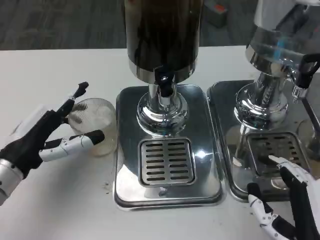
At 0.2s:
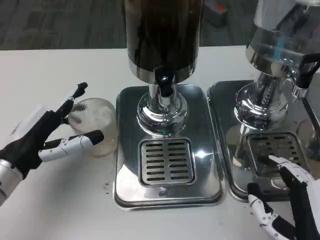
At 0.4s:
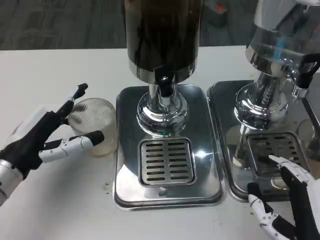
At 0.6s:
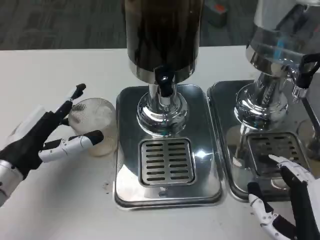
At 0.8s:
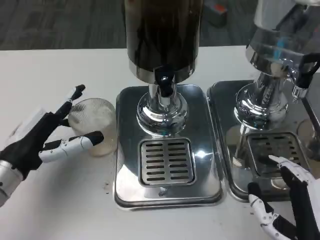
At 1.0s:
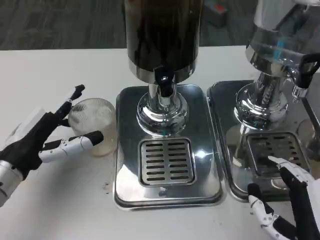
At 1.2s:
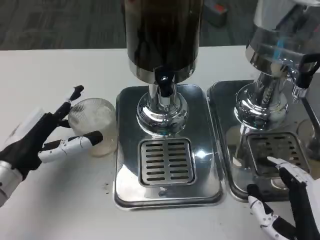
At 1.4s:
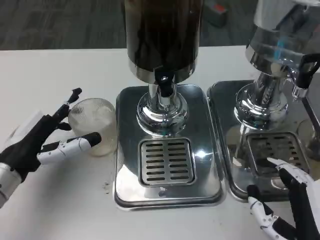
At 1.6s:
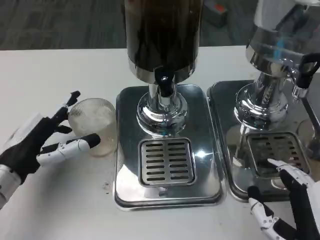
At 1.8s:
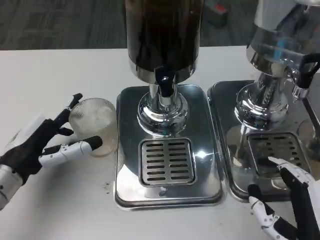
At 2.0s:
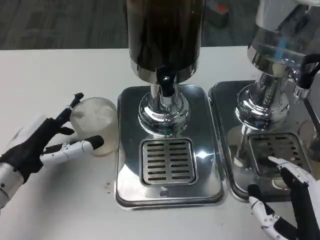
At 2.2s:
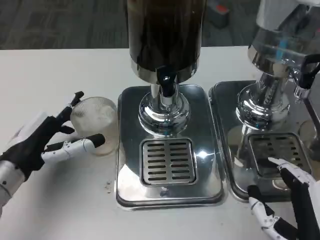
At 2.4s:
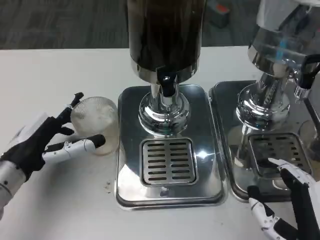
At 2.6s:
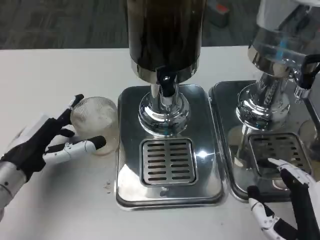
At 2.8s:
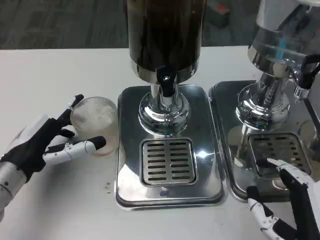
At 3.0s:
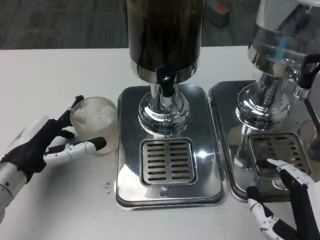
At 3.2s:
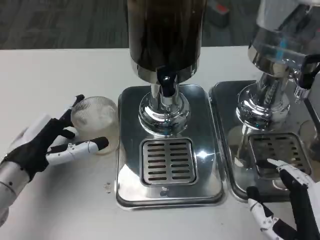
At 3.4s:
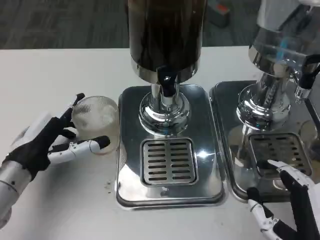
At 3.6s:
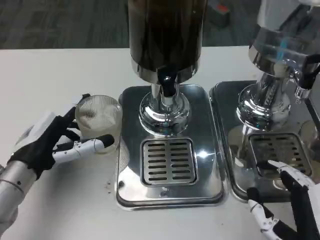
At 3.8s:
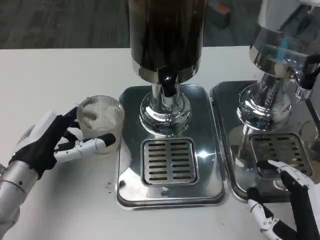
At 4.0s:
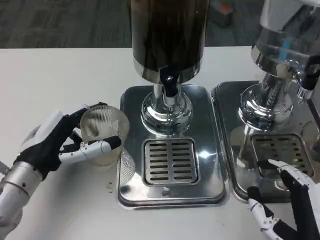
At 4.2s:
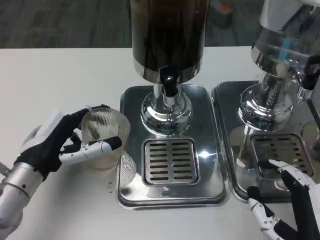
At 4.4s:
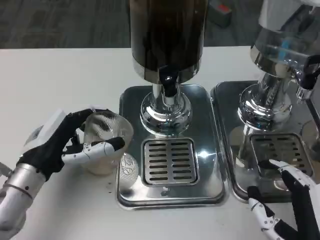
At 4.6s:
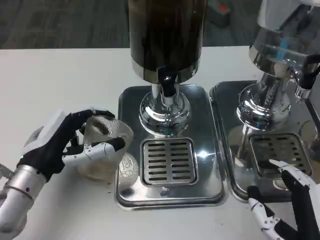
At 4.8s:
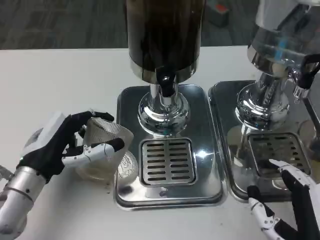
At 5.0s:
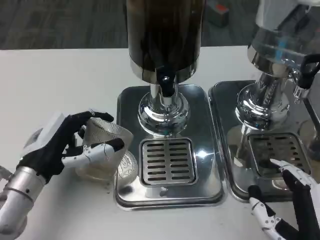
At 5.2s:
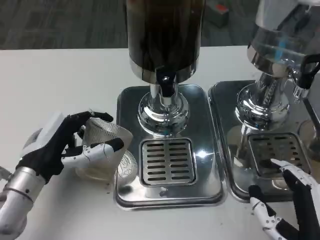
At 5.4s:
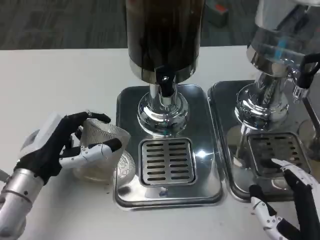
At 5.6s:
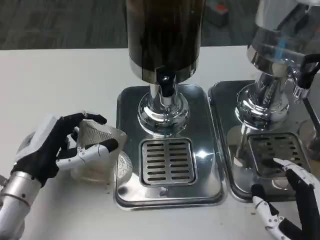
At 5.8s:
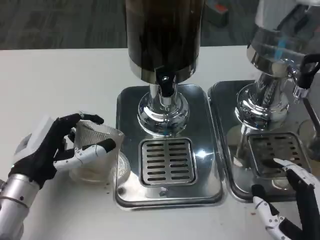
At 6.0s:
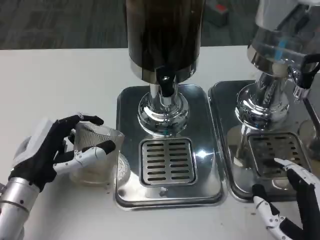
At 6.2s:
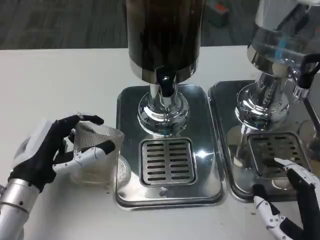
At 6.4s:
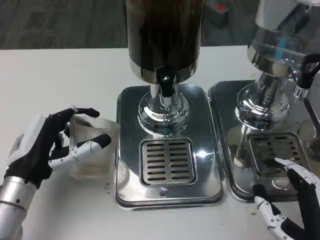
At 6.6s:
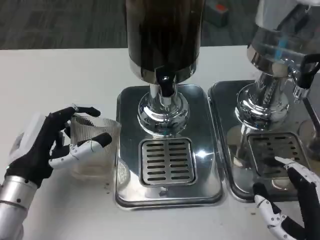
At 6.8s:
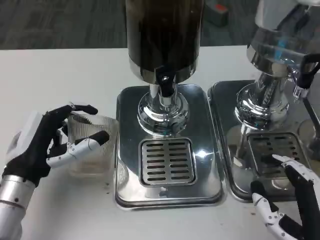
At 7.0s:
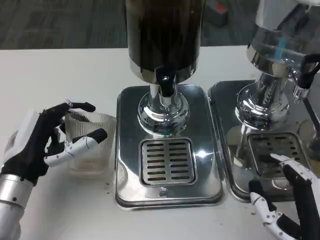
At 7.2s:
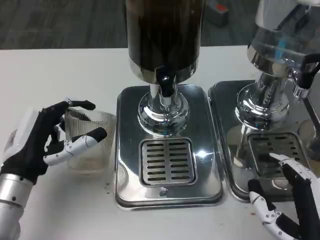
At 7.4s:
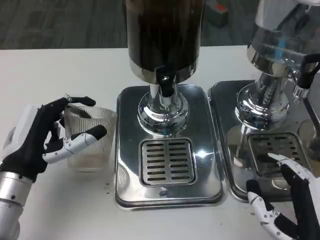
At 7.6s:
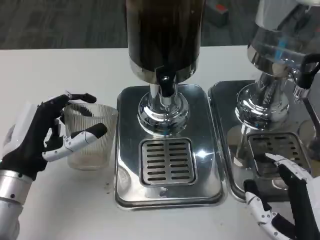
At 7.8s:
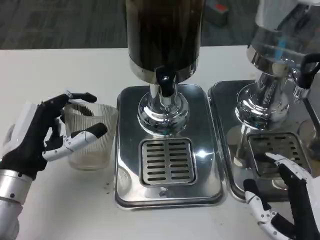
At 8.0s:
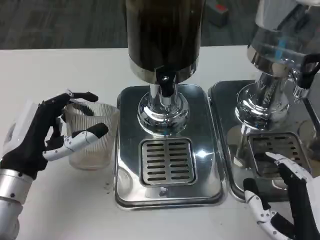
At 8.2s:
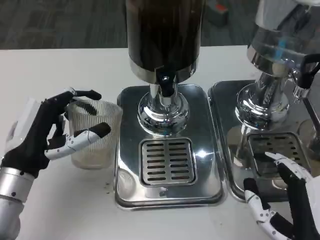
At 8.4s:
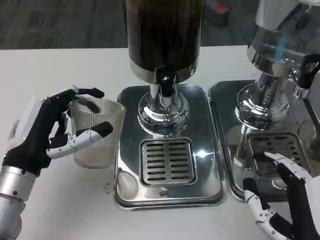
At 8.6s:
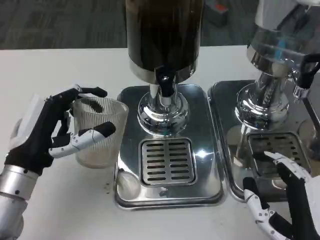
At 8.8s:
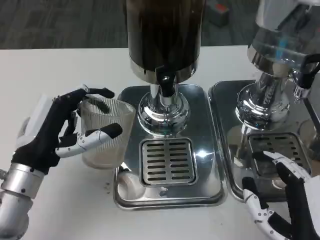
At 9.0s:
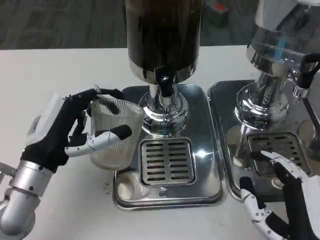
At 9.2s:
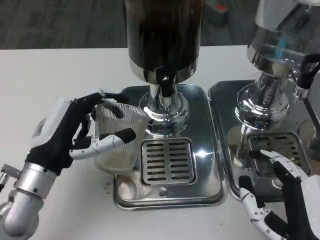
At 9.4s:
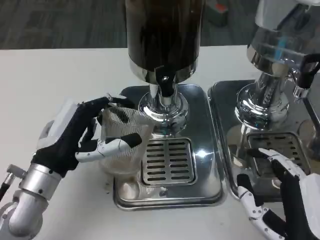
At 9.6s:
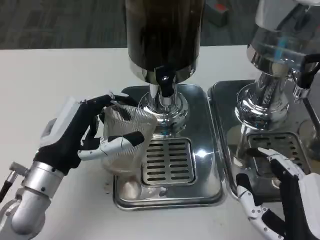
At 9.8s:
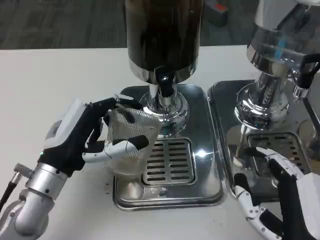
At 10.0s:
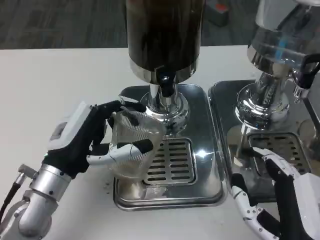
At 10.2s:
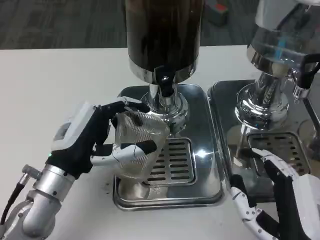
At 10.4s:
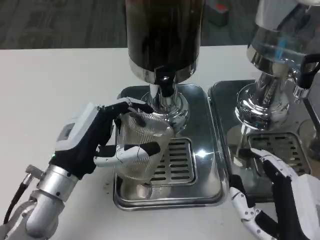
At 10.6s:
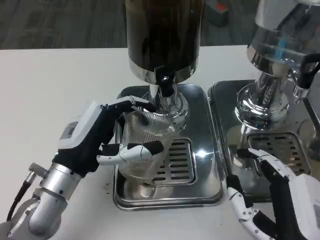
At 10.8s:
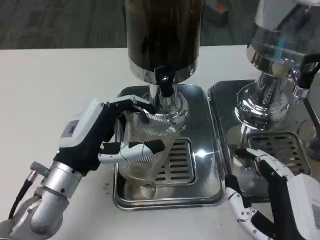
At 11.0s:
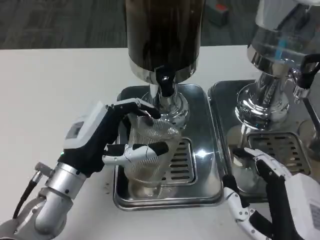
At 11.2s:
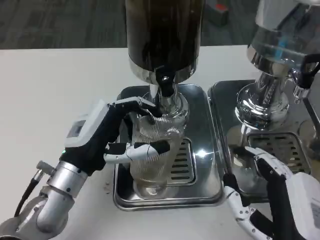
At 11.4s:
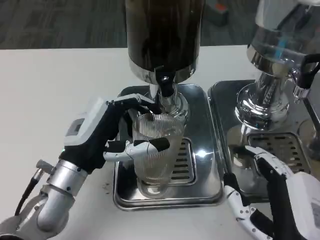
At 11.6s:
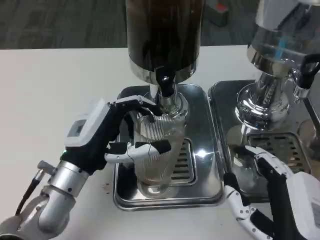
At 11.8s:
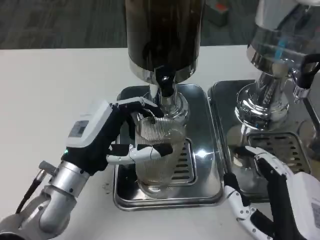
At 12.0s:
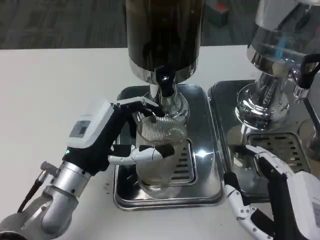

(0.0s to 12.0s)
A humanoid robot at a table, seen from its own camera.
Task of the whole recording: Grasp the cup under the faucet to collect the drink, then remove the cup.
0.0s - 1.6s: There are only small adjustments of the hands.
1.6s - 3.0s: The two hands keep their place.
6.0s - 9.0s: The hands move only a little.
10.4s - 12.0s: The hands move only a little.

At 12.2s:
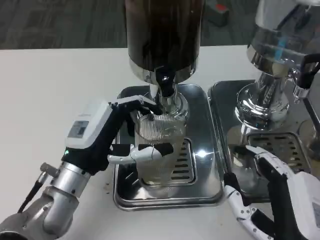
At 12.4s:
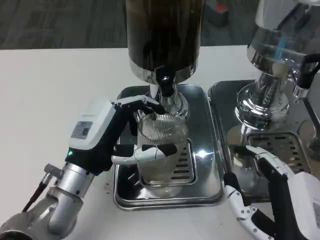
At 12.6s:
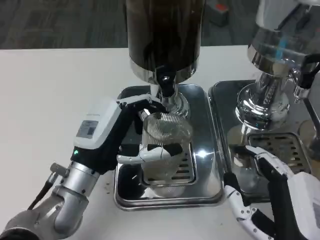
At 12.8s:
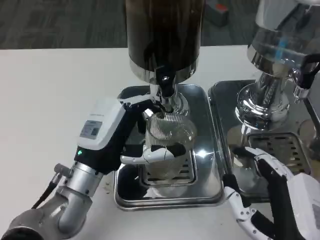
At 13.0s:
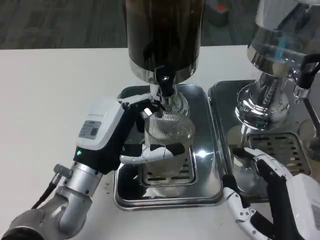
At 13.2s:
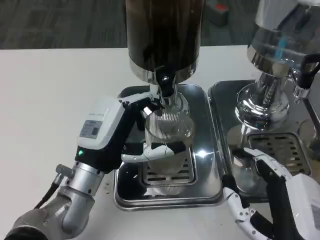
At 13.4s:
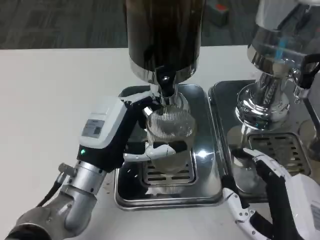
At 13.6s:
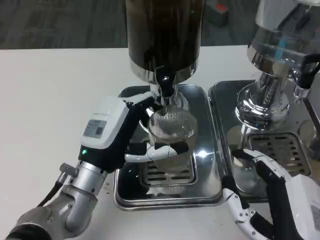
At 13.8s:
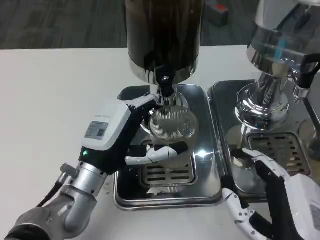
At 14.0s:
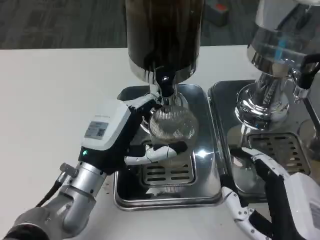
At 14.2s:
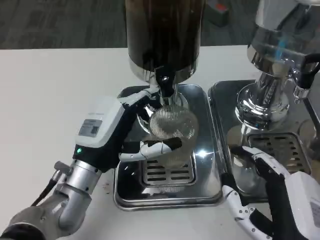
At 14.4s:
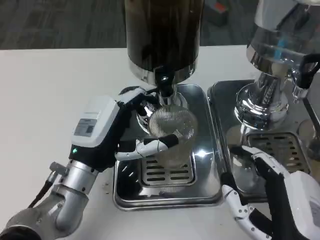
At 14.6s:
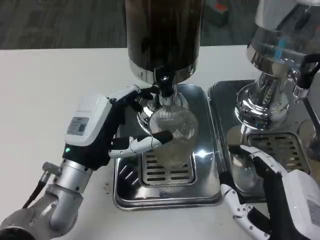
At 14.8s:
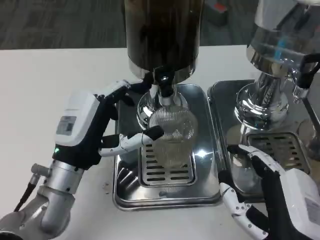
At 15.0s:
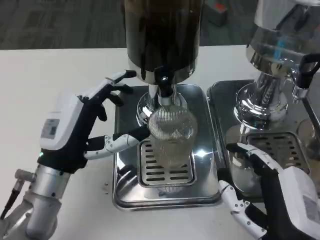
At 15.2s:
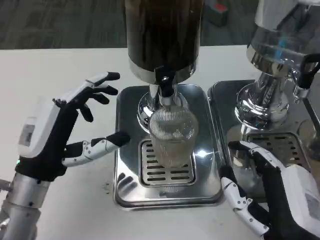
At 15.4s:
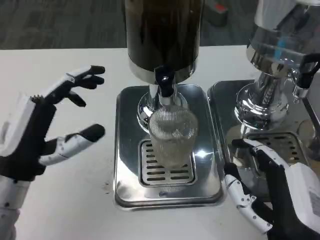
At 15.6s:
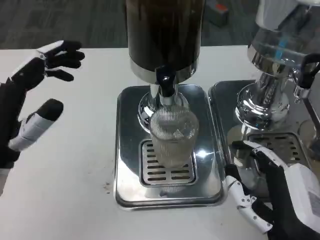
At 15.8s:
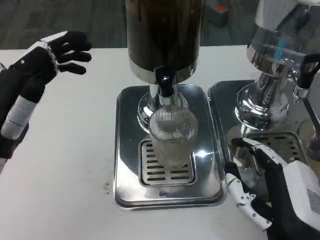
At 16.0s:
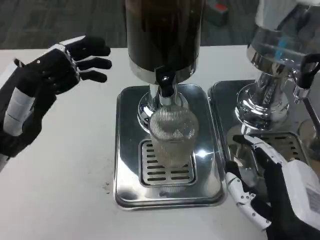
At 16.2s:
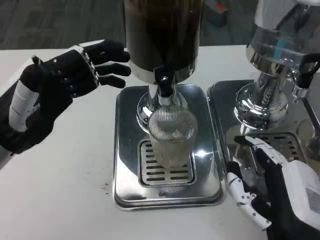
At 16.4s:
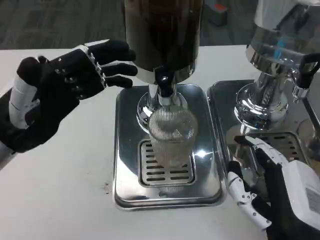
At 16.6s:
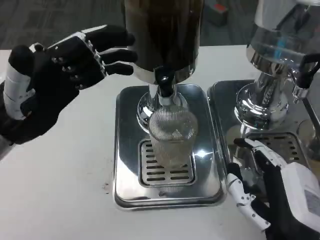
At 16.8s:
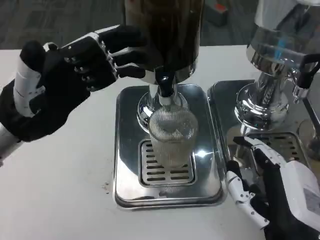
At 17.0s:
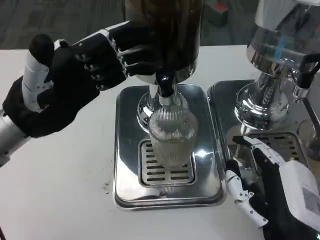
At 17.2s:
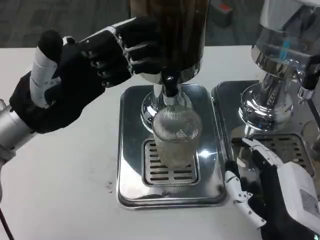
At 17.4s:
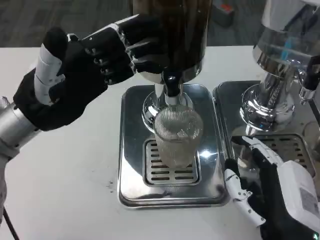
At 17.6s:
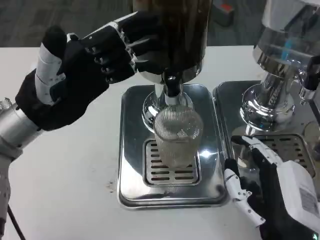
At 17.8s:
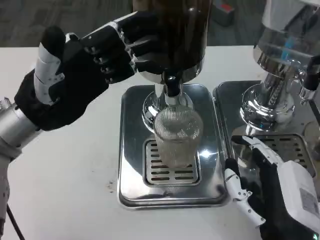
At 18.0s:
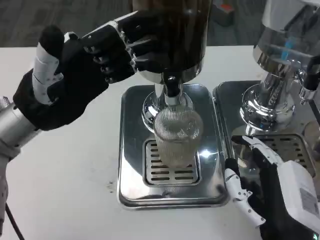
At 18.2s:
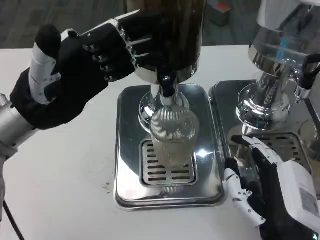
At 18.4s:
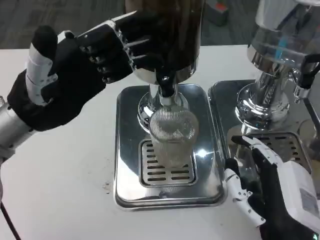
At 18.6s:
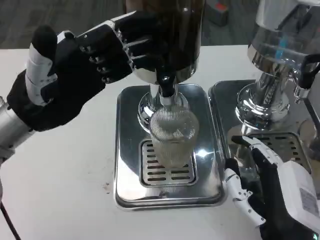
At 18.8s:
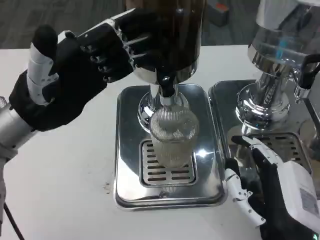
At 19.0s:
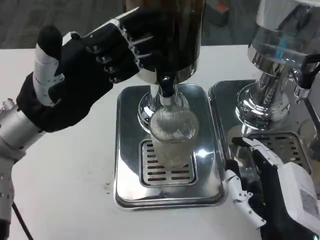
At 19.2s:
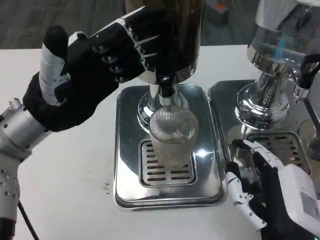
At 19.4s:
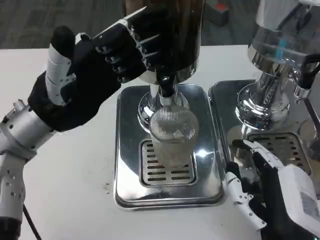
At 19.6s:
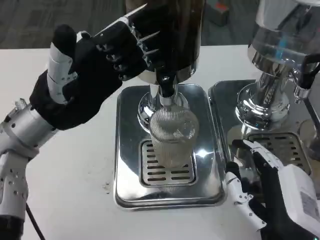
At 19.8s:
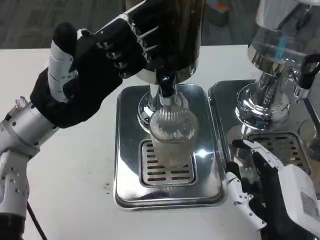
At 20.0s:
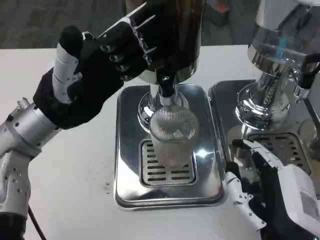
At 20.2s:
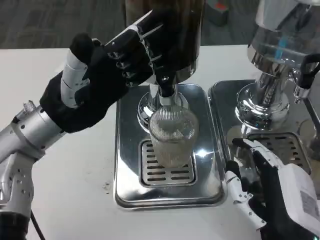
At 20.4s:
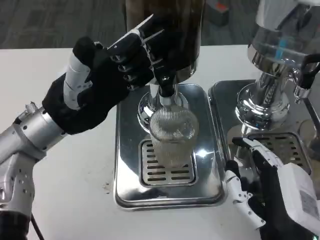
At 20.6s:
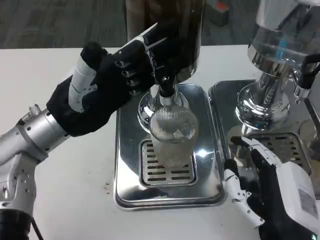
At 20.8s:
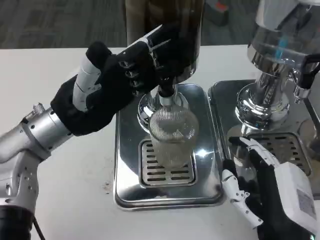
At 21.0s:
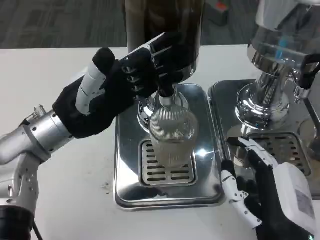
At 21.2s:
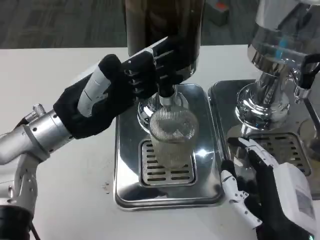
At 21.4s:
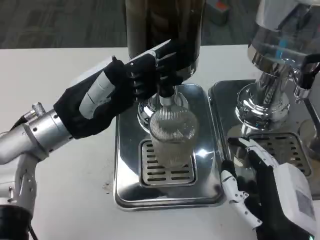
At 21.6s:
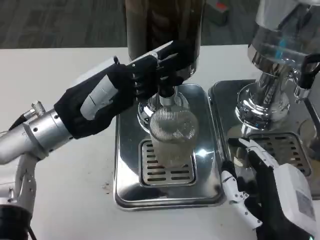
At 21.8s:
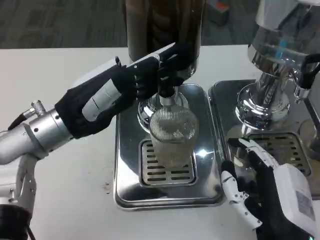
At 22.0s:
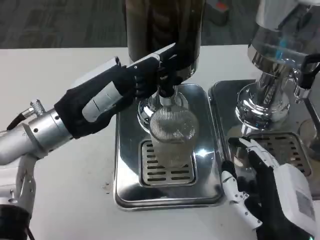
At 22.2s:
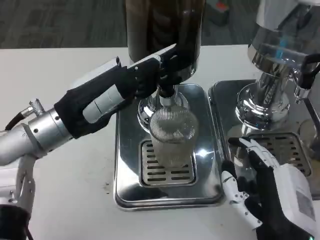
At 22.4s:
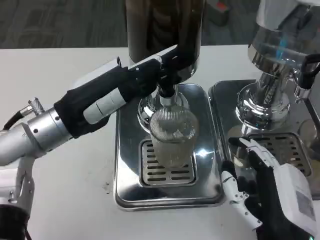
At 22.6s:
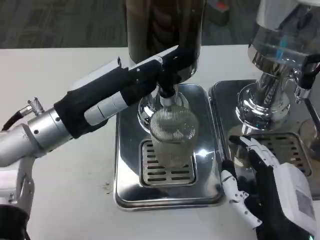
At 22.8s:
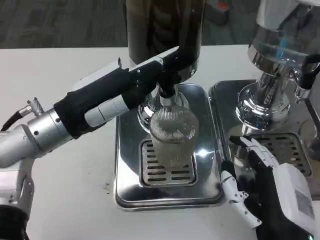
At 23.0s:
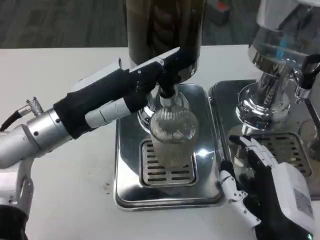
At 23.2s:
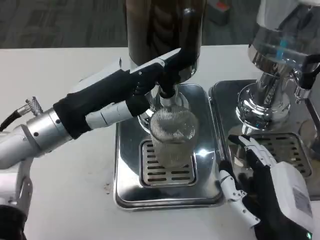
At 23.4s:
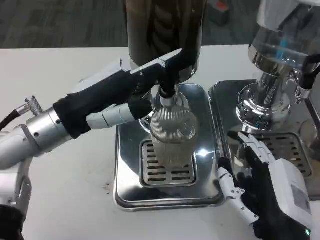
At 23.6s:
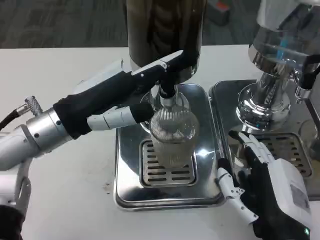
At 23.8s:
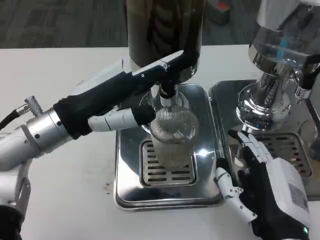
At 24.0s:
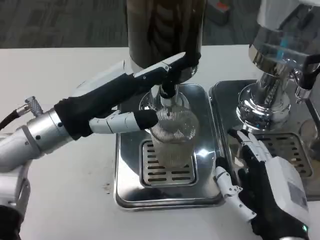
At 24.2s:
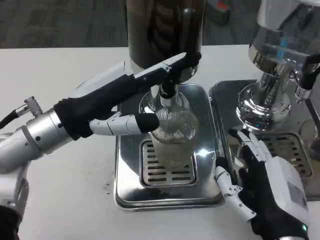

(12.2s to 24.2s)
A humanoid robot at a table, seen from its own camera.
Task of the whole recording: Grasp the cup under the faucet to collect the drink, then remove the cup.
12.2s - 13.8s: The hands make only small movements.
13.8s - 15.2s: The left hand goes roughly 5 cm to the left.
15.2s - 16.6s: The left hand is displaced upward by approximately 10 cm.
18.2s - 19.8s: The hands make only small movements.
21.2s - 22.6s: The hands move only a little.
22.6s - 24.2s: There are only small adjustments of the hands.
